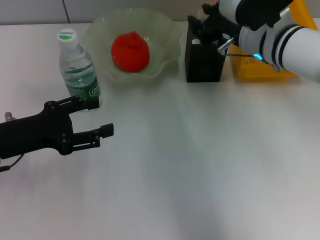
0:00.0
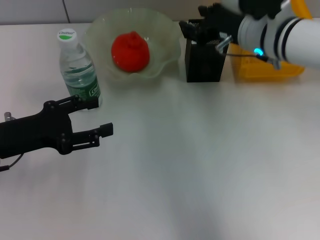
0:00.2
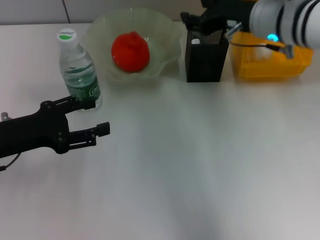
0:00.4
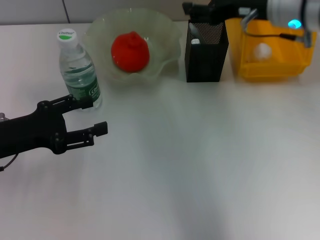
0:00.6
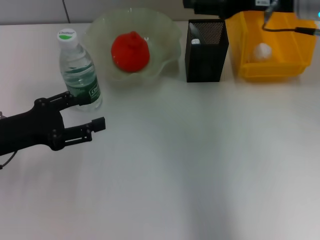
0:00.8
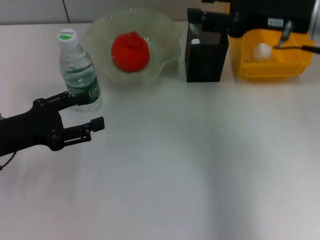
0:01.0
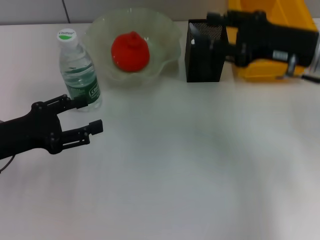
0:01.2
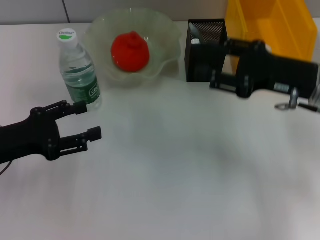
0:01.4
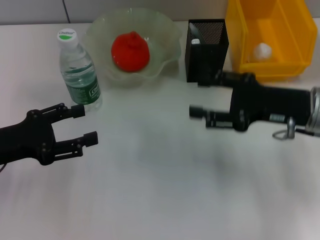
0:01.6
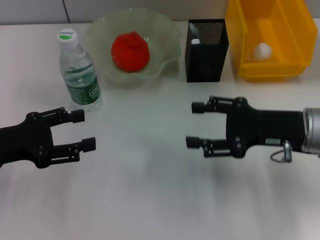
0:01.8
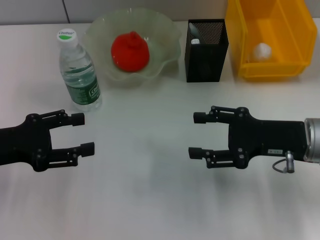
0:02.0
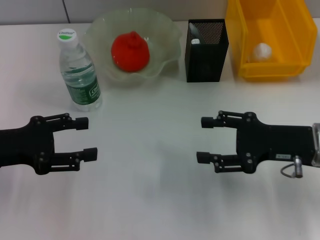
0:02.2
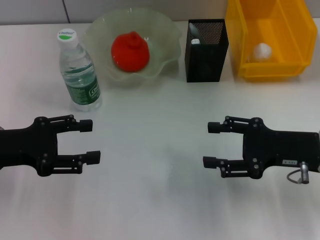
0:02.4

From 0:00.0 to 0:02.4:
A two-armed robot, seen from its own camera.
From 0:00.0 to 0:01.2: The right gripper travels to the right by roughly 10 cm, moves about 10 cm upward and comes back, and opens up.
From 0:01.2 to 0:02.4: The right gripper travels downward and backward by about 10 cm.
